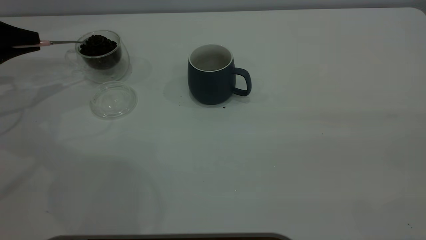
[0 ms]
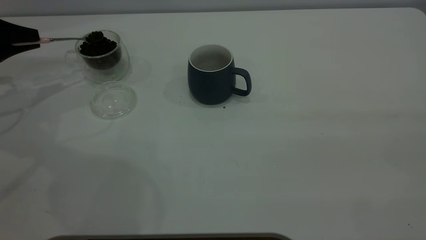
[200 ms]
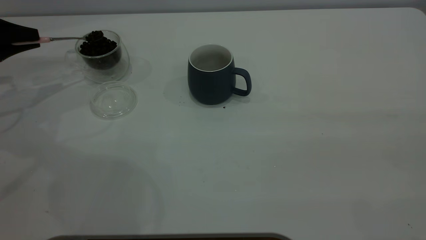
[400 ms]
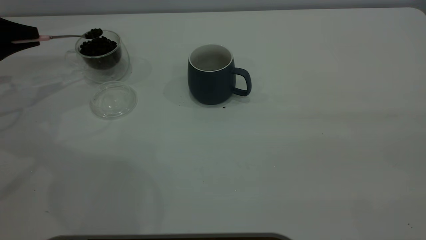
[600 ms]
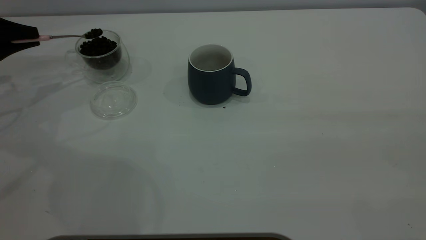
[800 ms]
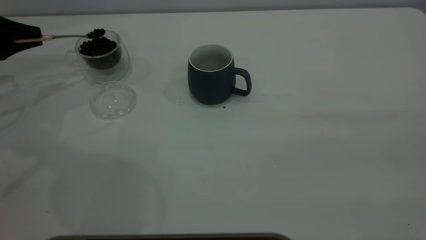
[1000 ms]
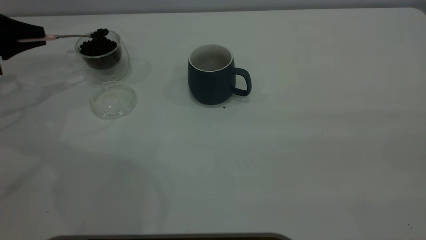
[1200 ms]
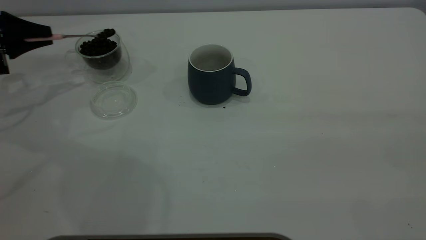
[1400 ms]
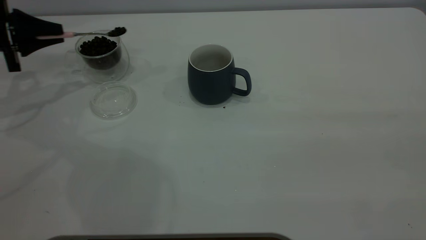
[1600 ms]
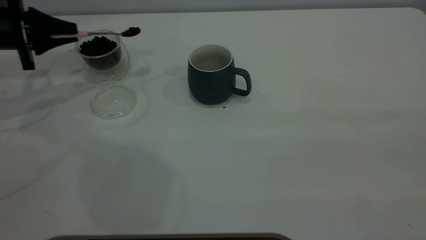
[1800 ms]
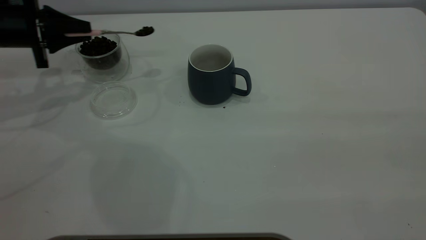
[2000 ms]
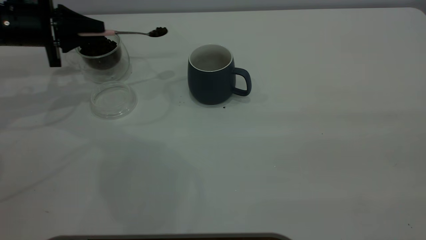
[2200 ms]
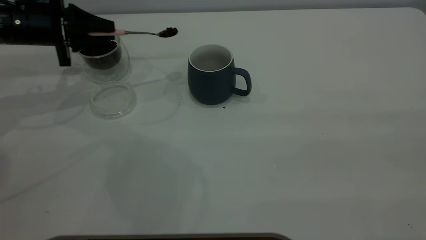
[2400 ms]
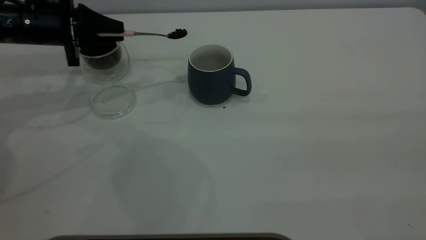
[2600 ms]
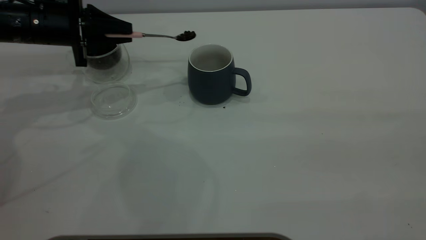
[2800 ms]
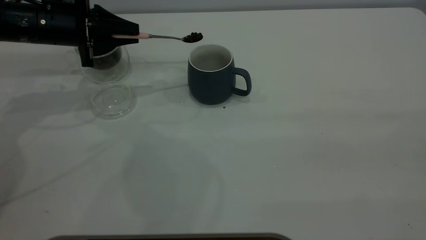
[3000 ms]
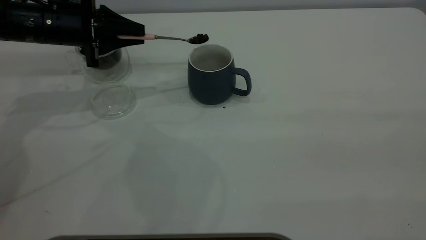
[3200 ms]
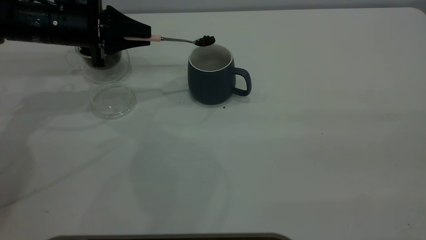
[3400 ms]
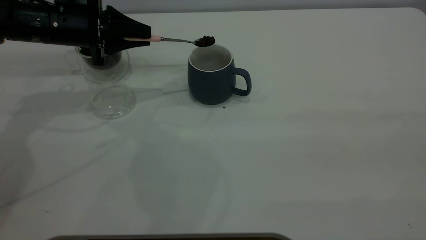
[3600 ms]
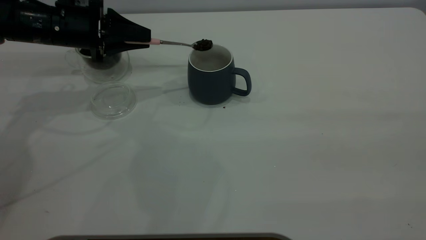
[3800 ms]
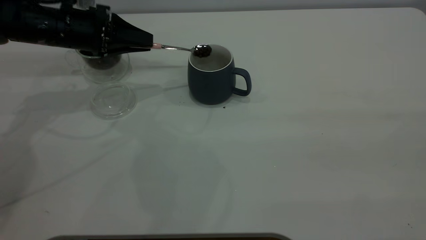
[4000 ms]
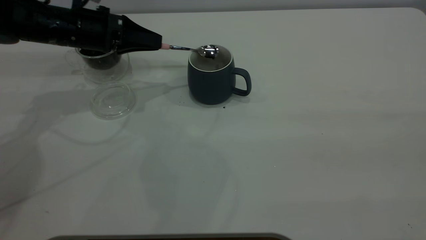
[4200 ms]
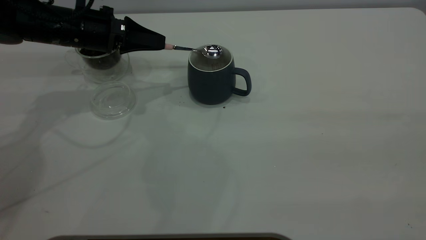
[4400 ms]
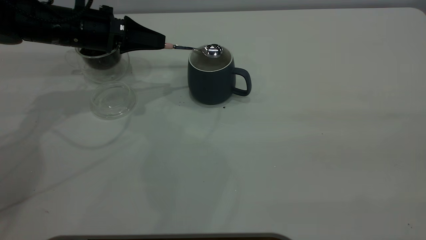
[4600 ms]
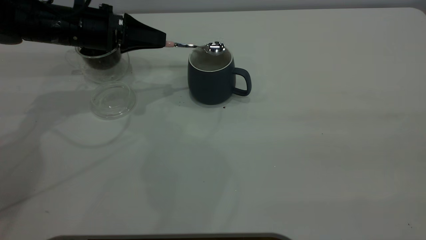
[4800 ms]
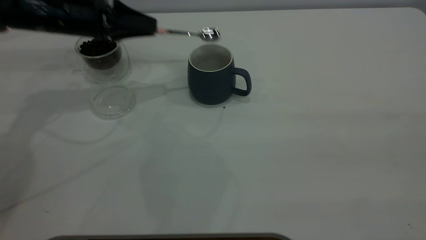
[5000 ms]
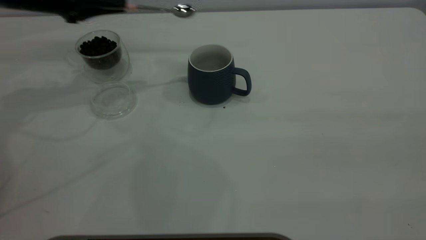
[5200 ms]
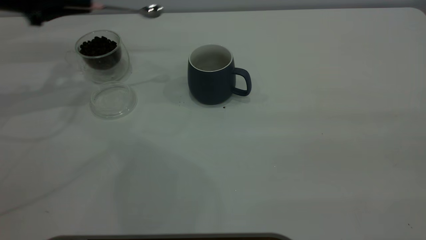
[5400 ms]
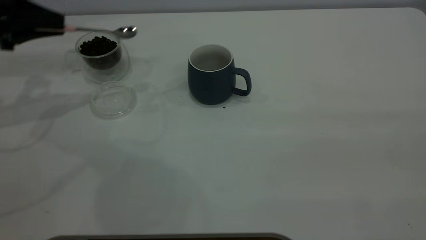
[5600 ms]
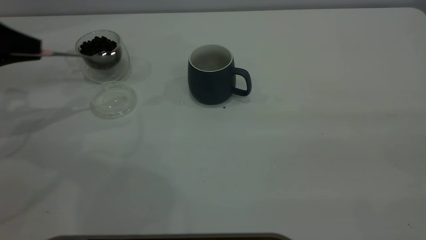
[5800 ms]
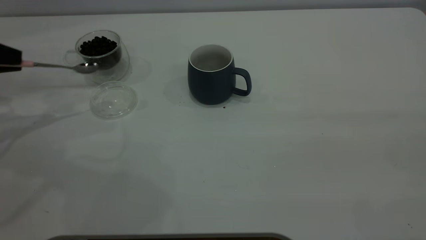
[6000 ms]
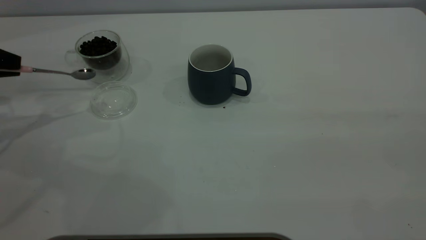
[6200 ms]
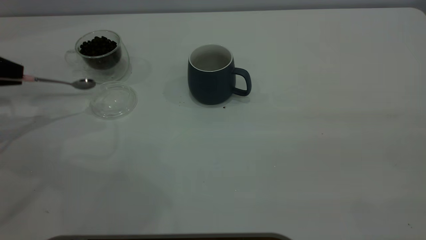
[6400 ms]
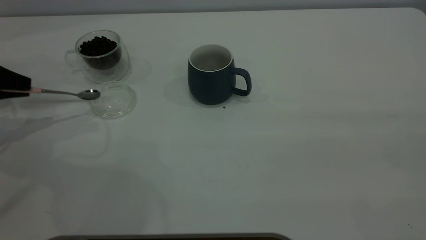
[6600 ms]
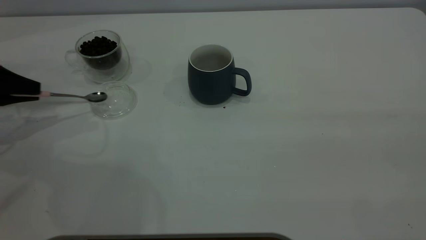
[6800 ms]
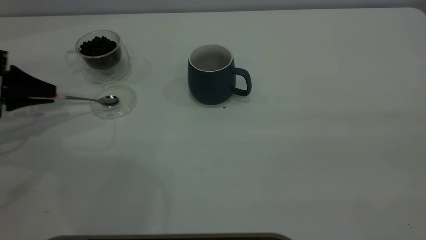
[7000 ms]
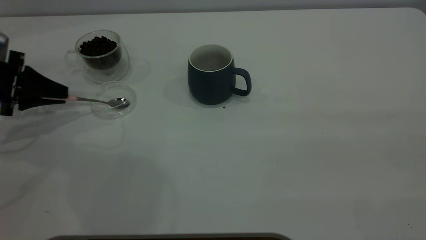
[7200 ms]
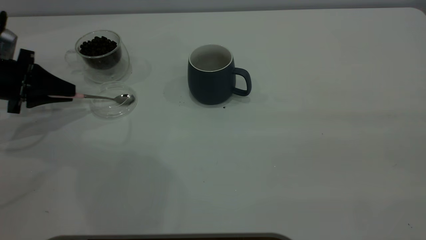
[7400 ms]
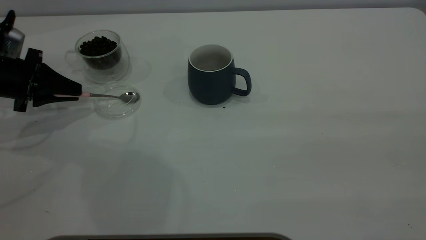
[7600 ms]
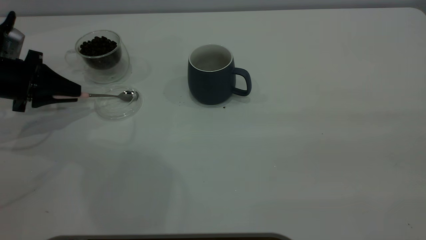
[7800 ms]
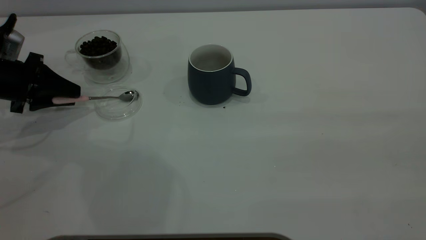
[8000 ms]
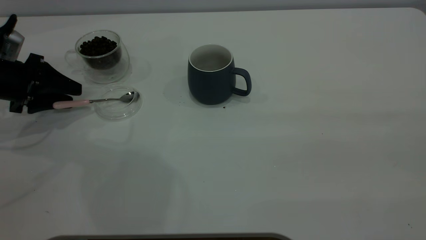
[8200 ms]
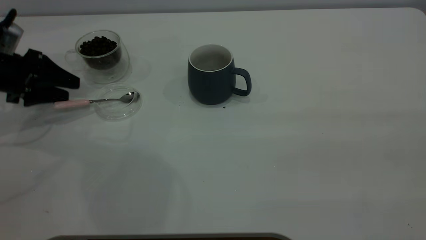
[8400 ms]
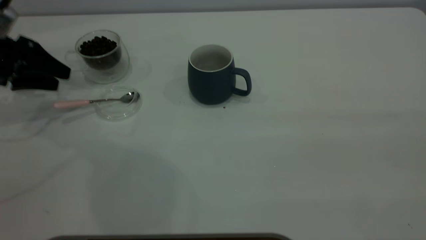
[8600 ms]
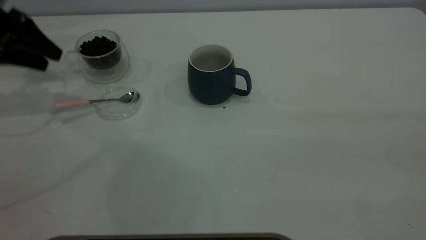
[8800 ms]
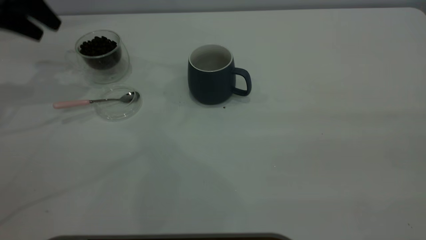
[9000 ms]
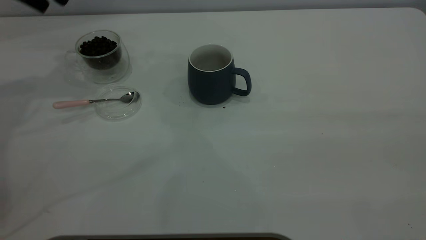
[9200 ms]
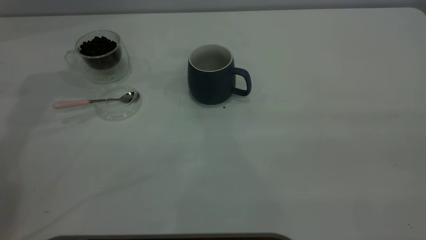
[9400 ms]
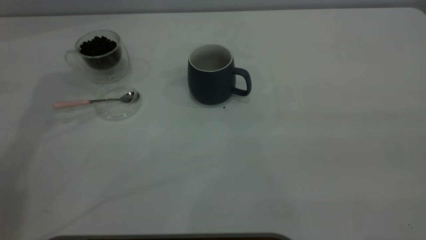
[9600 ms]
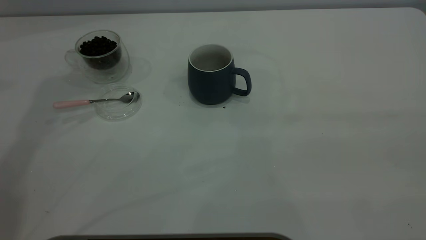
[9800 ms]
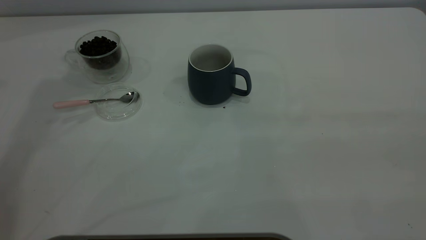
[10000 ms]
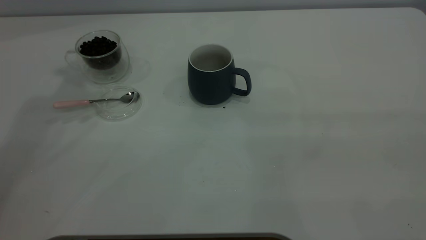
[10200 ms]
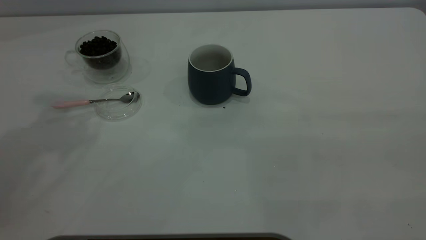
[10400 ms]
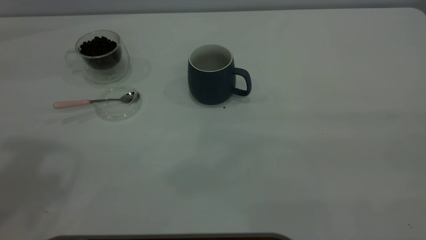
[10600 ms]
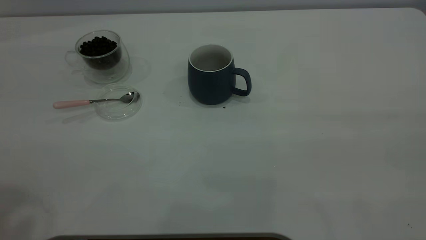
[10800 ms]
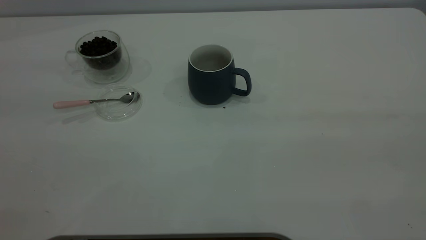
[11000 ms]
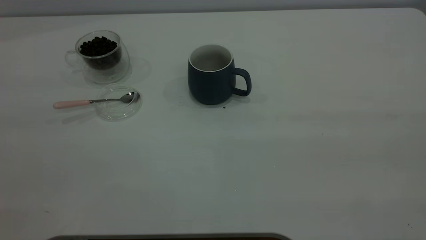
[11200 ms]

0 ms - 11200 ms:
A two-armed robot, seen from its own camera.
Task of the whole recording: the right gripper place the grey cup in the center of the table, the left gripper take the pink spoon from the cup lid and scoop out the coffee beans from the coffee cup and put them into the grey cup, the left gripper put the spoon back into the cup lid.
Step, 0 ms - 5000 ms: Scoop a spoonful of beans into the cup.
Step, 5200 ms - 8600 ms: Place the spoon back in its original place.
0 ms - 1600 ms: The grippers move only a little.
1600 ms - 3200 ms: The left gripper shifts roughly 15 cm to the right.
4800 ms - 6400 ms: The left gripper is displaced to the left and backward by some 20 cm.
6400 ms - 8000 ms: The left gripper moves to the right and downward, about 10 cm, and opens.
8000 ms - 9600 ms: The left gripper goes some 30 cm upward and to the right, and opens.

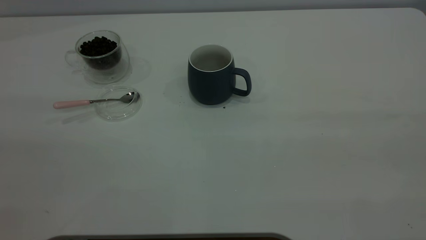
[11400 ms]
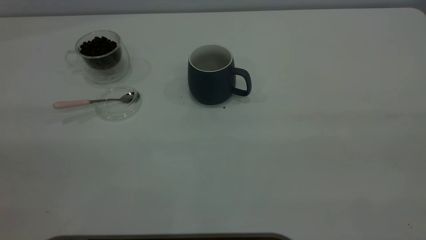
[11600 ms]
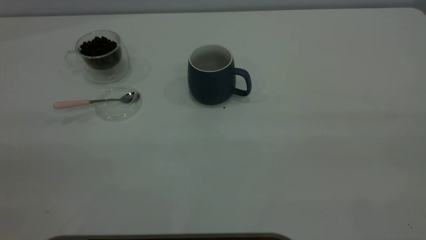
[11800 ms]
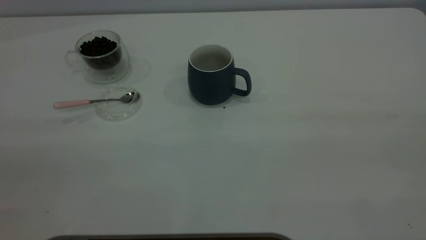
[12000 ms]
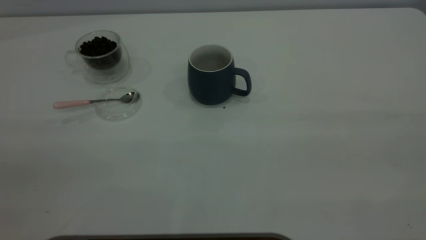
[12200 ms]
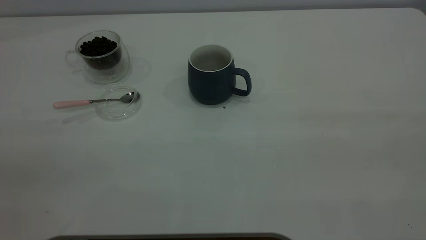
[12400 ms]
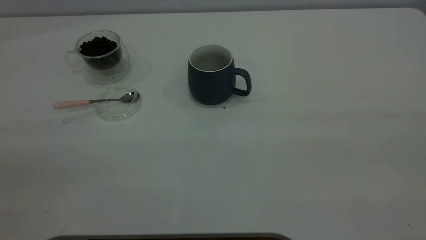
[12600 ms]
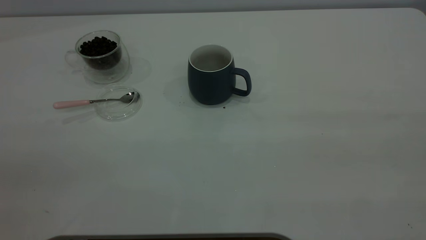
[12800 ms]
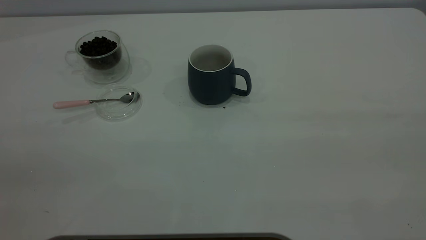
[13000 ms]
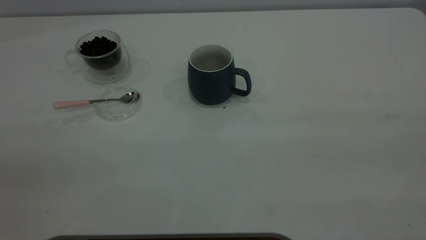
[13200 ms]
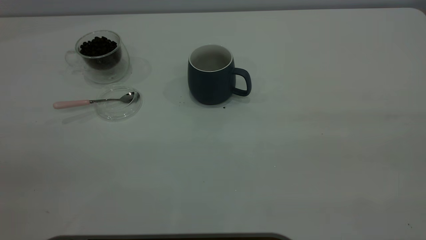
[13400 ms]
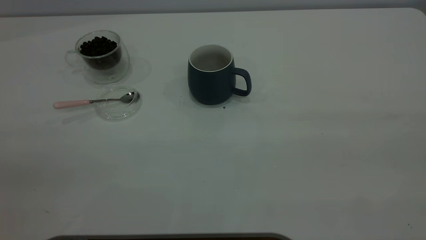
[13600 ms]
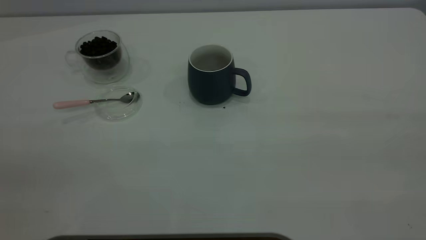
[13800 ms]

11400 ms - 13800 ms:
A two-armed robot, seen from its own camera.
Task of the whole recording: the right gripper place the grey cup in the center of the table, the left gripper take the pink spoon from the cup lid and scoop out the coffee beans from the coffee cup and put them into the grey cup, the left gripper put the spoon back into the cup lid.
12600 ms - 13800 ms: Neither gripper changes place.
